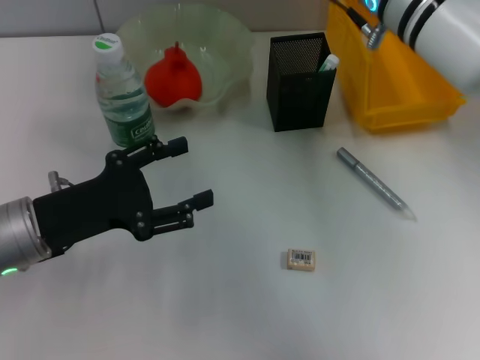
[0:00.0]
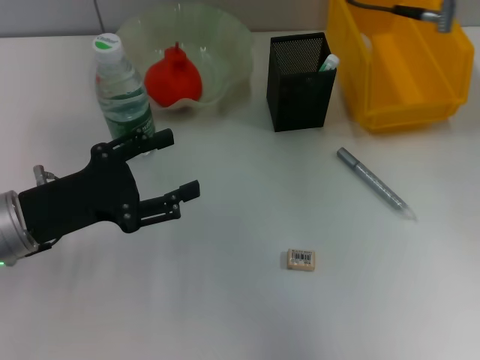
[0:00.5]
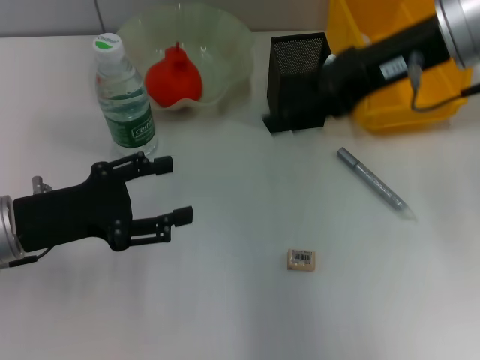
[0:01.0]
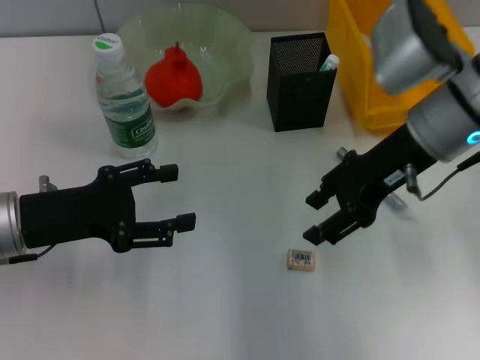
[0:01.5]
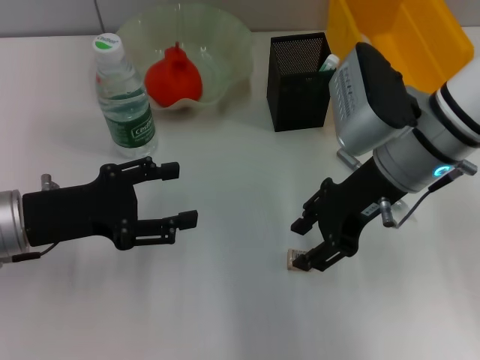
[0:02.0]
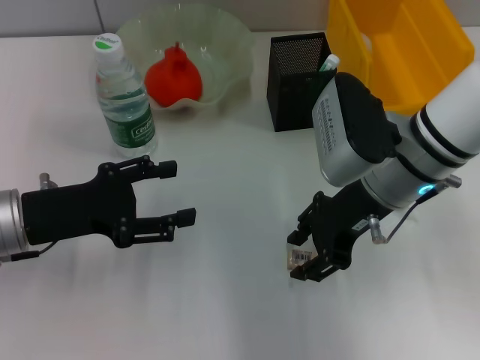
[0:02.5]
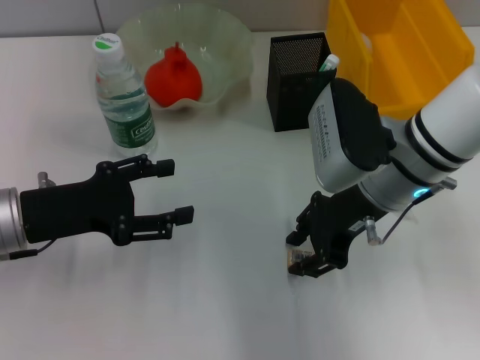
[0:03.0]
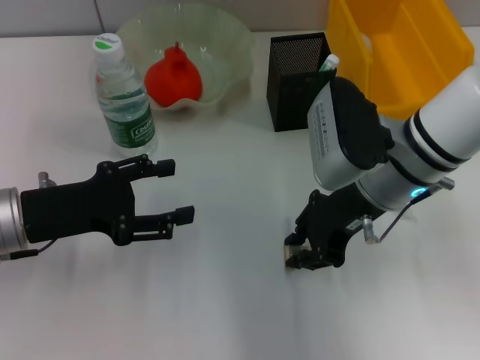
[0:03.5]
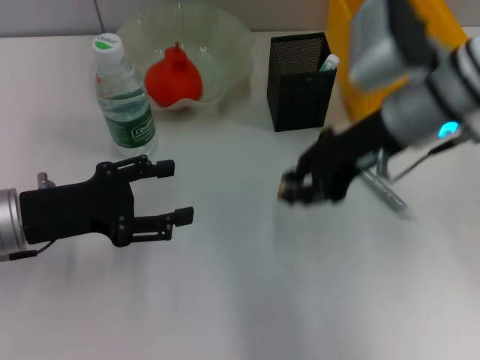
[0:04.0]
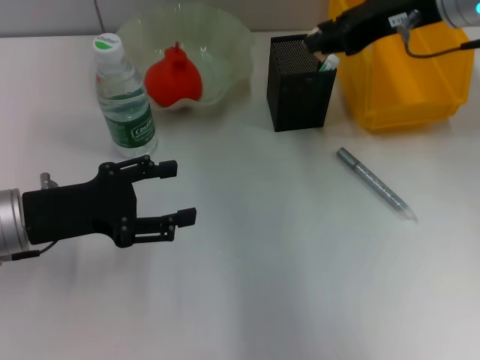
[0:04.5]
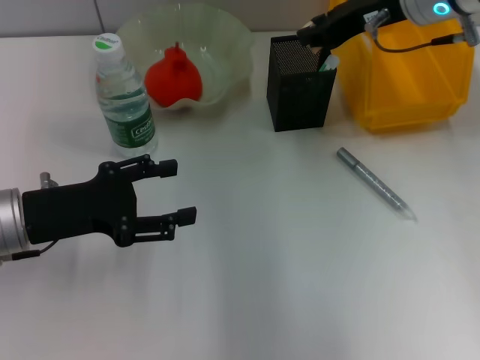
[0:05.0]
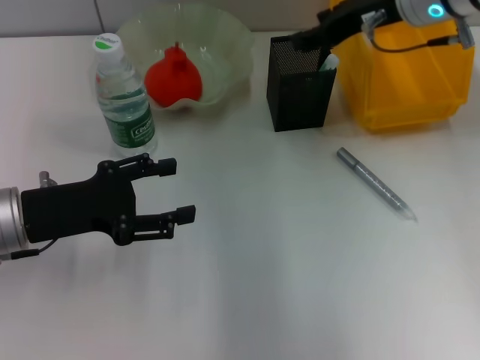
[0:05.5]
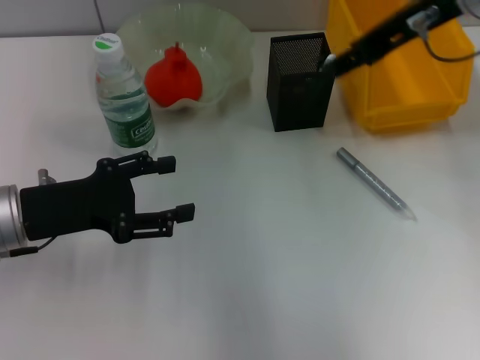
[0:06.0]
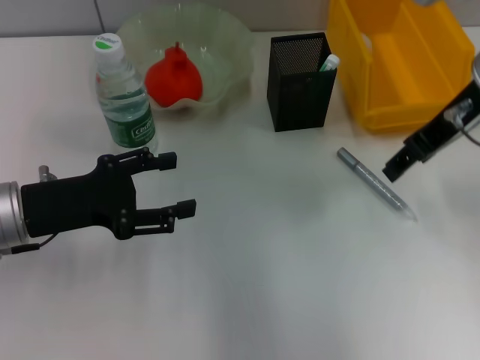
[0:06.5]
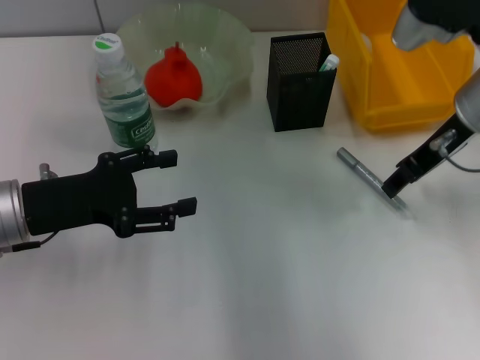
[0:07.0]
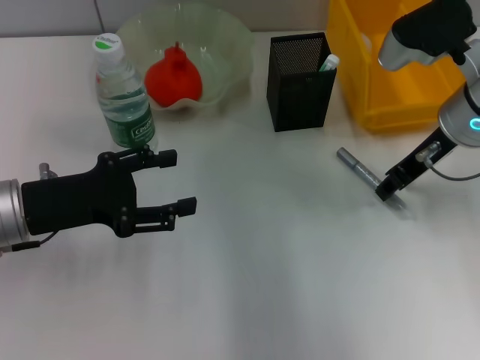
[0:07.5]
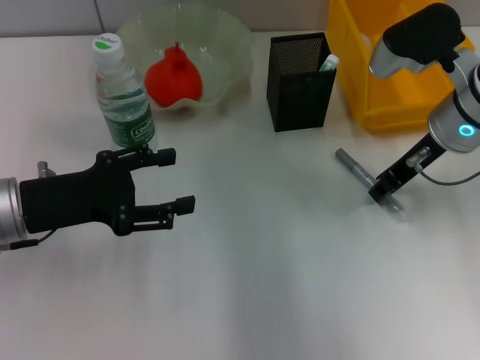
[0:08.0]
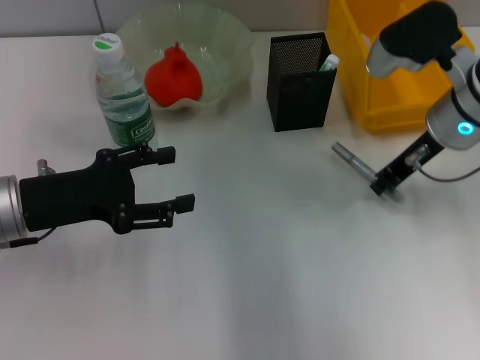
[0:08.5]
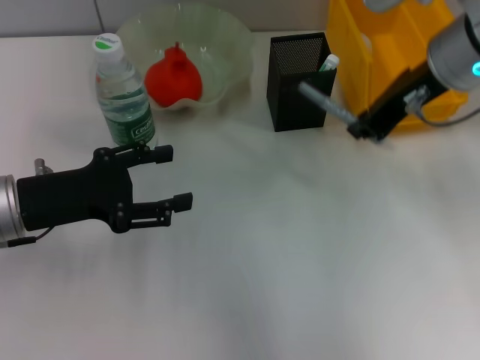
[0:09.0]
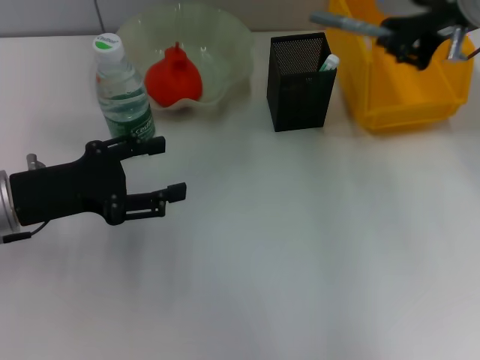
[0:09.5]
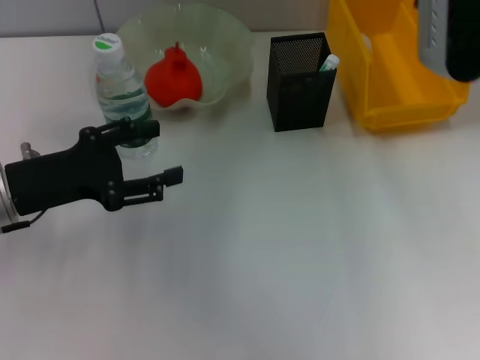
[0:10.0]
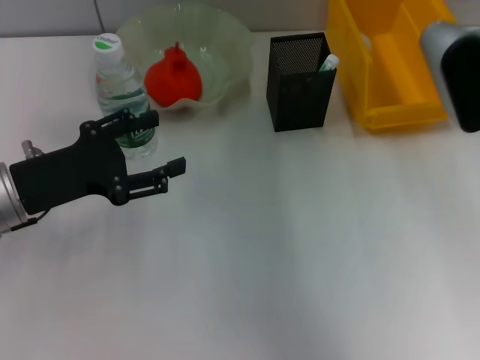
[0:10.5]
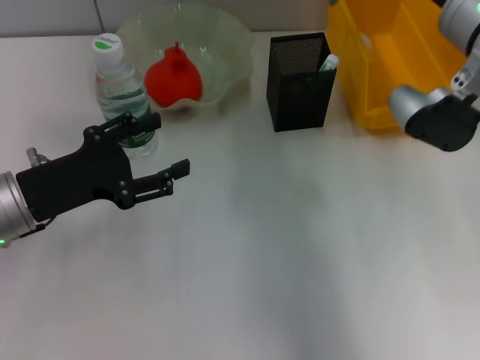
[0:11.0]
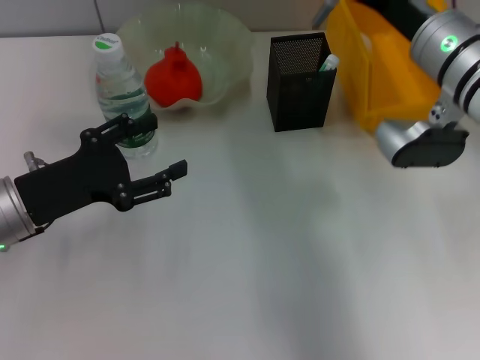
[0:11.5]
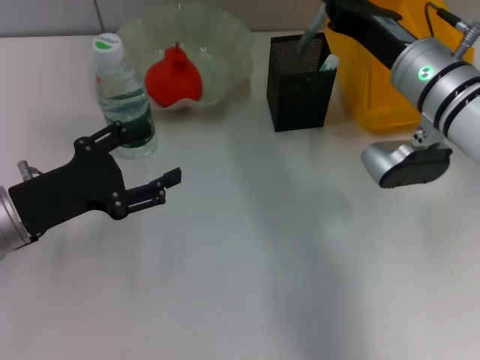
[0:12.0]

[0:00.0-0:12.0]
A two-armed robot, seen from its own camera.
Step, 0:00.0 to 0:03.0: Grab the eraser with the right hand.
Step, 0:03.5 to 0:05.5: Put the eraser into the pen holder with the right hand.
Step, 0:06.0 to 0:08.0: Grab the gray glue with the right hand.
0:00.0 to 0:02.0: The right gripper goes approximately 5 cm downward.
0:02.0 to 0:04.0: The right gripper closes up.
0:04.0 to 0:06.0: The right gripper goes approximately 10 cm upward, and opens up.
0:06.0 to 0:08.0: The right gripper moves downward, about 15 cm, and closes.
0:08.0 to 0:10.0: The right gripper heads upward, covering about 15 cm.
0:10.0 to 0:12.0: The right gripper shifts approximately 15 cm downward.

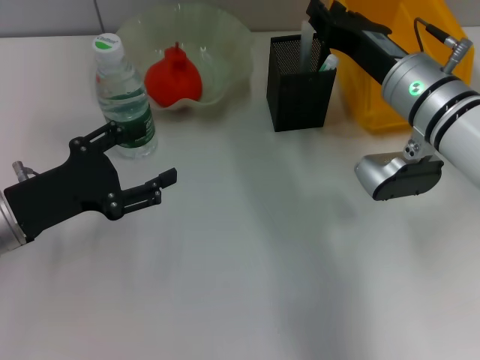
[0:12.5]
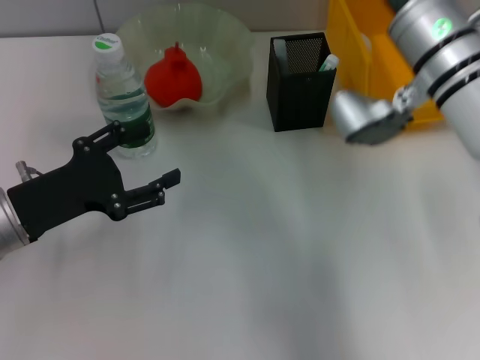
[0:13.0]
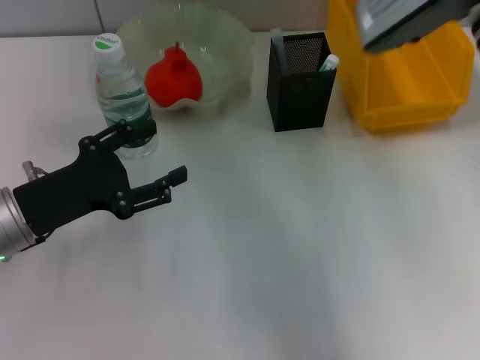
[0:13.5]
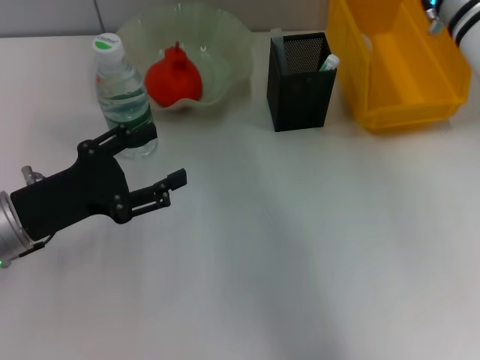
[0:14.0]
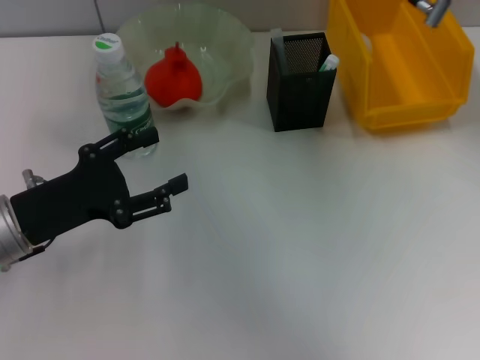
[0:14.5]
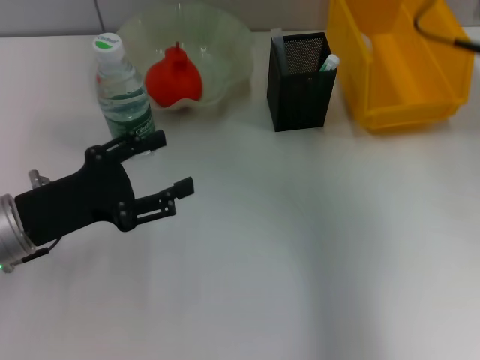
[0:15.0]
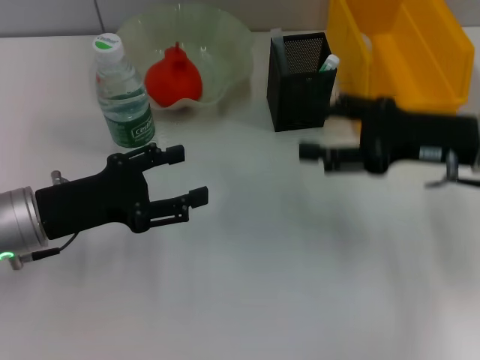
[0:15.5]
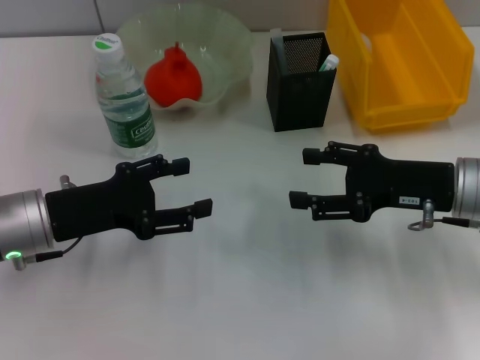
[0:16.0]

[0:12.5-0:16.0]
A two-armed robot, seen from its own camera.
0:12.5 to 0:14.5: The right gripper heads upward, covering about 15 cm, and opens its fingers.
0:14.5 to 0:16.0: The right gripper moves downward and to the right, roughly 20 cm.
